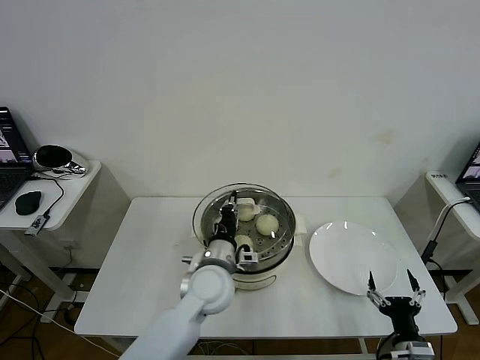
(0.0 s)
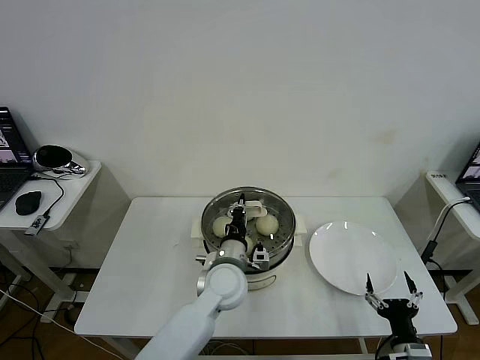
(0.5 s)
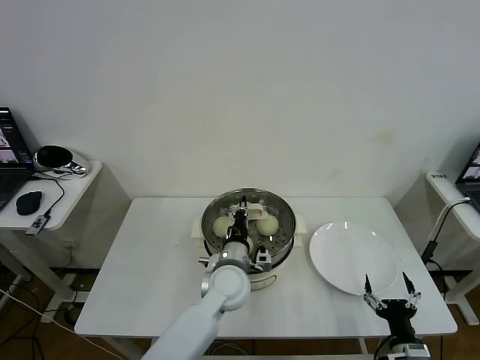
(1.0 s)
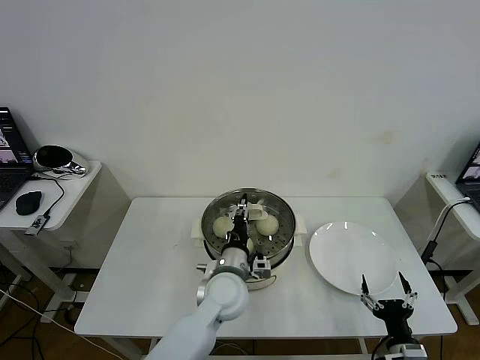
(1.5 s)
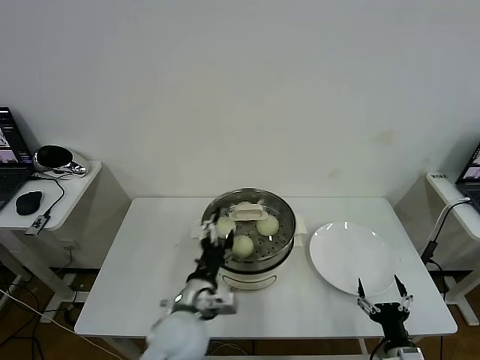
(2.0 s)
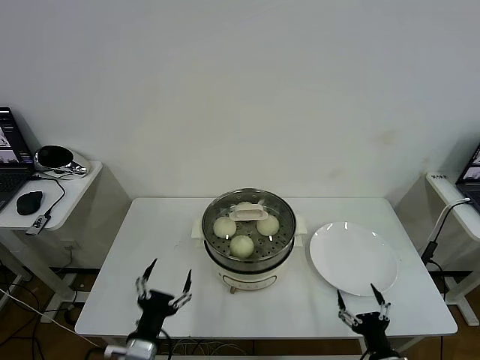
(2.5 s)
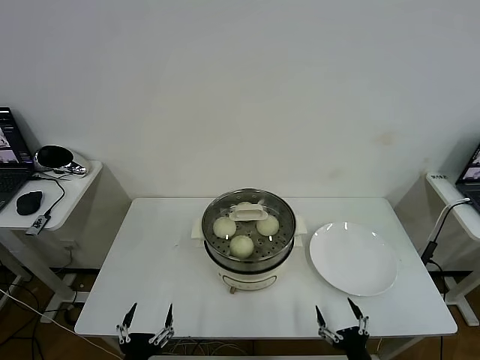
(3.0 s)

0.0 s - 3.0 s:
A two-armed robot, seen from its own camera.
Task of the whole recording: take steamed baozi put them in steamer then cover it.
0.0 s - 1.5 s: The left gripper shifts by approximately 5 cm, and opens up.
1.5 s - 3.0 s: The left gripper moves backward and to the left, approximately 30 cm, and opens up. The right gripper goes some 5 cm to the left.

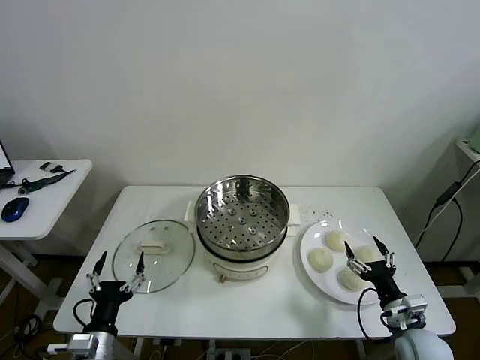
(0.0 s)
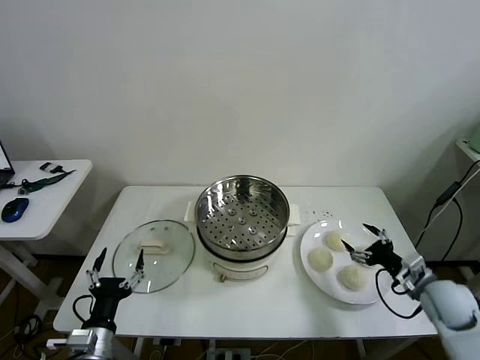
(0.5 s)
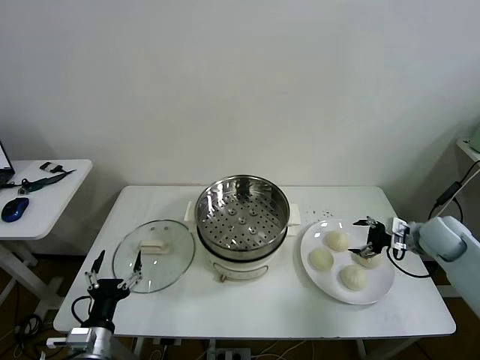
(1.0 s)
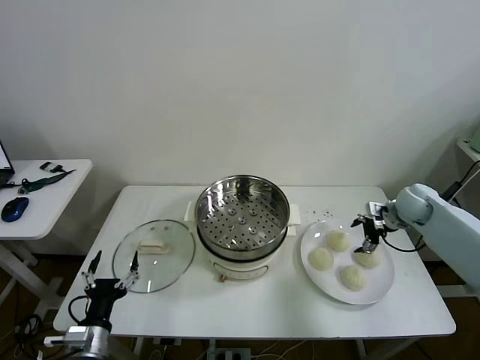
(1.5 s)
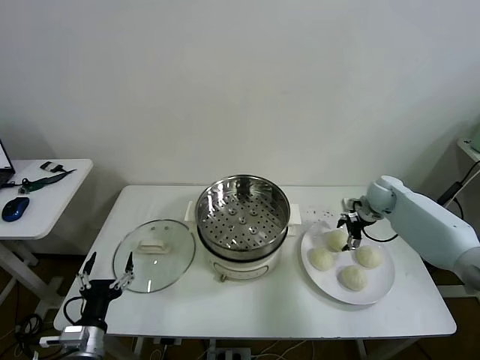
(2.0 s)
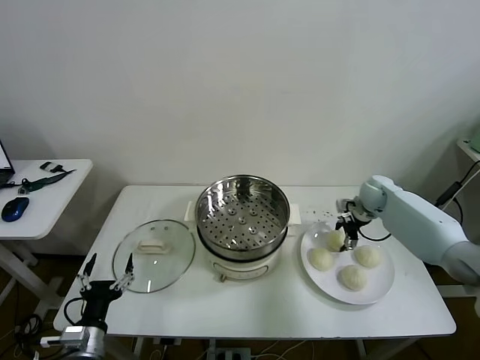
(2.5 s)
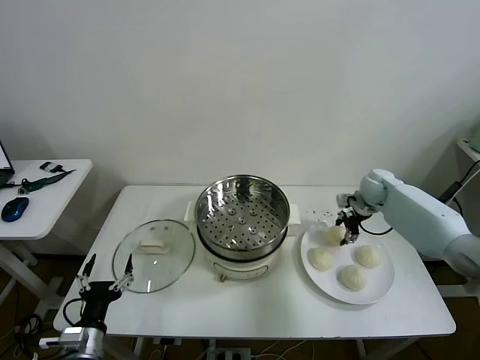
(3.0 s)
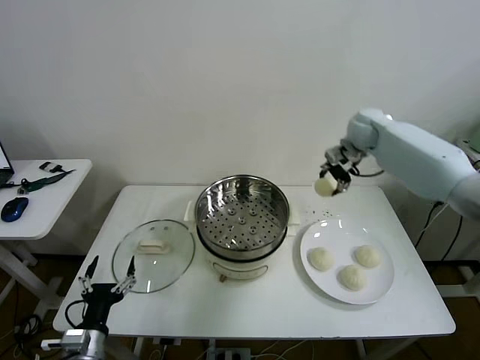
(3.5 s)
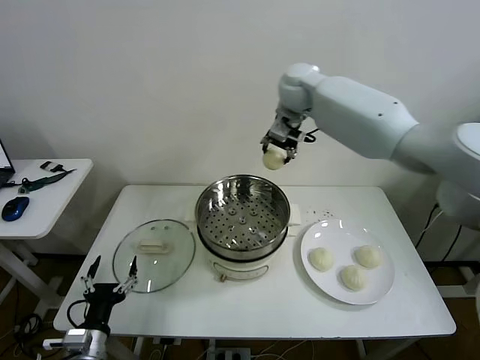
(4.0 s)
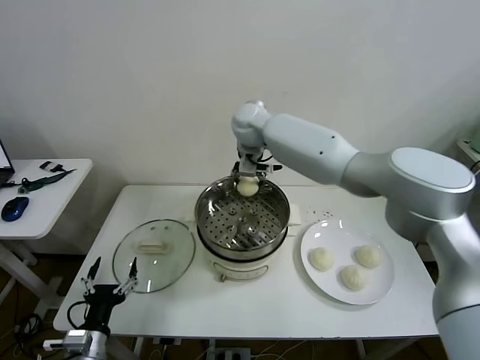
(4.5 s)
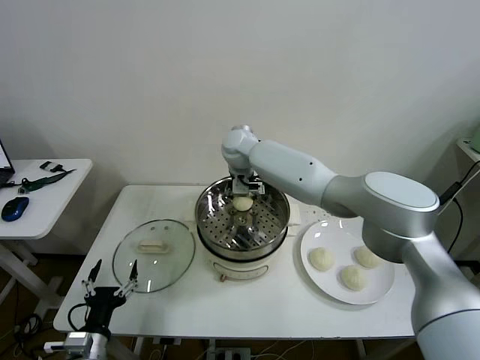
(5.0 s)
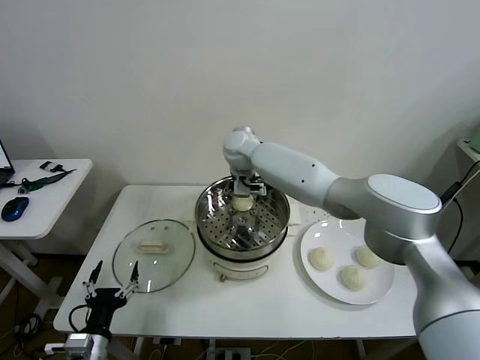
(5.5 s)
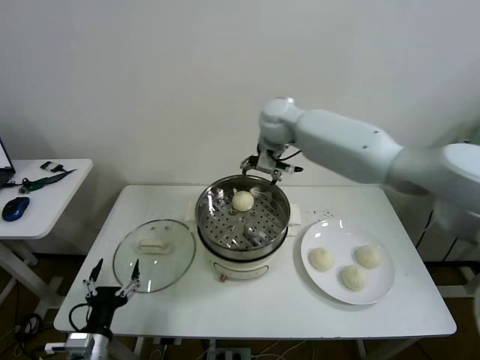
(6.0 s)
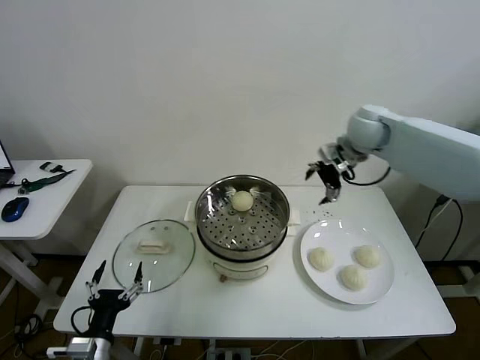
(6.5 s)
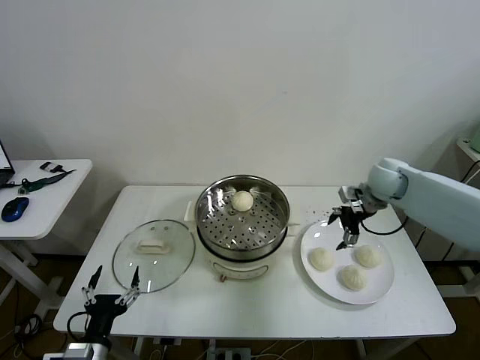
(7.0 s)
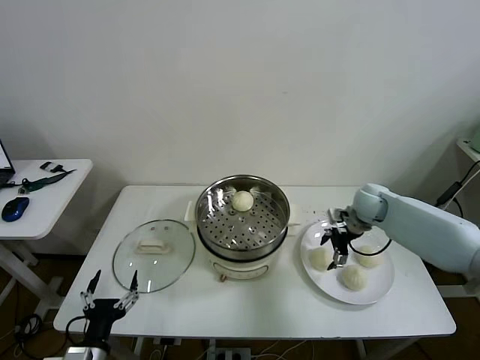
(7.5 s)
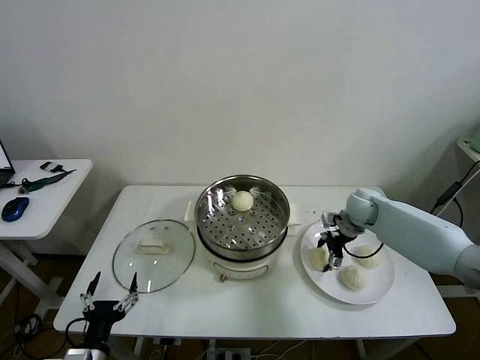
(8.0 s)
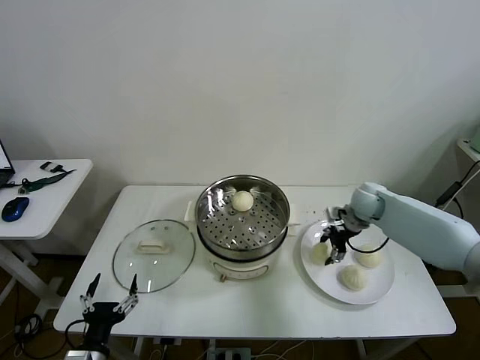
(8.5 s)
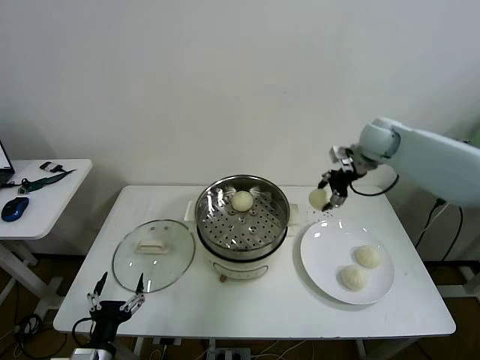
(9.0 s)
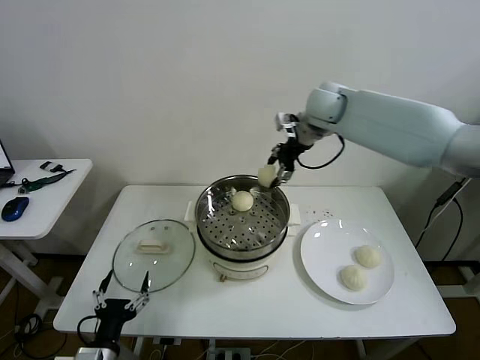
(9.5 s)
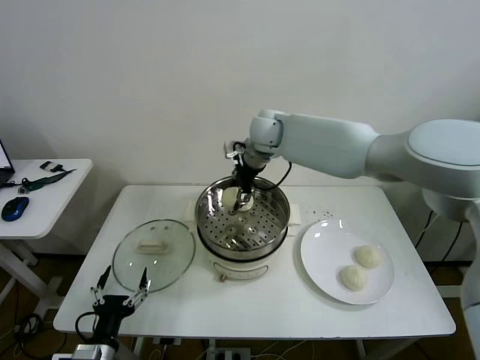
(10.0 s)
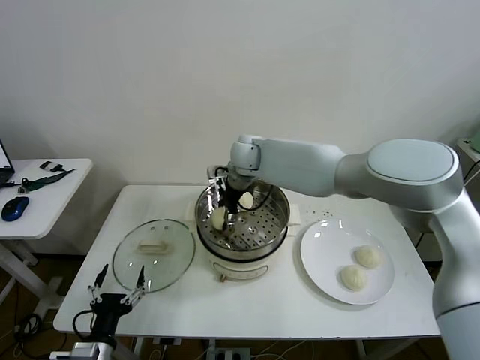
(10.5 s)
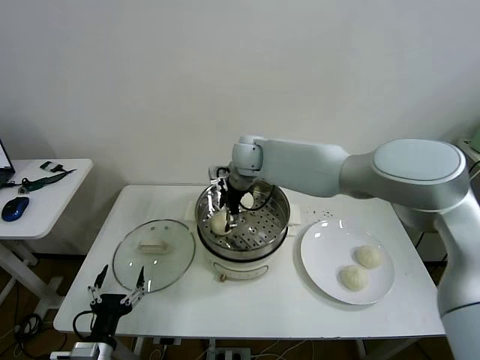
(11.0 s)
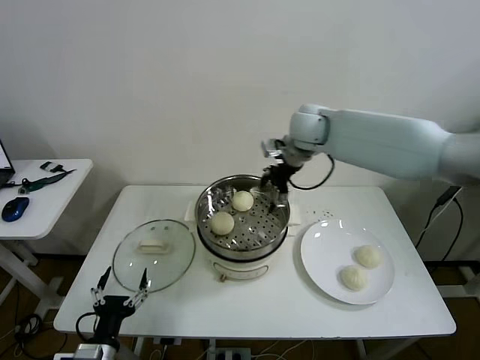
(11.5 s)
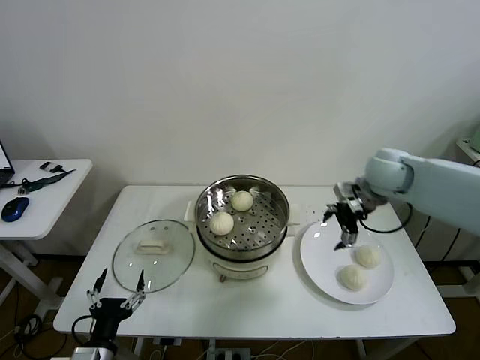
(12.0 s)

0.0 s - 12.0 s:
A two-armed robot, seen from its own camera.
Task of the whole recording: take steamed baozi put them in steamer then cover it.
Step, 0.0 s - 2.5 s: Grasp the baozi in the plate with right gripper.
Step, 3.0 s - 5.0 s: Place the baozi on the steamer with right gripper.
Step, 5.5 s - 8.0 s: Grasp the baozi in the plate with right gripper.
Step, 8.5 s - 10.5 s: Place the baozi on the steamer with right gripper.
2.0 s - 4.0 s: The right gripper is displaced to the left and upward by approximately 40 cm, and closes.
4.0 s - 6.0 s: The right gripper reaches some 15 cm downward, then returns, and opens its fingers.
6.0 s - 8.0 s: The right gripper is displaced downward and to the right by roughly 30 cm, and closes.
8.0 s - 10.0 s: The right gripper shifts roughly 35 cm to the left and upward, and closes its fingers.
10.0 s - 12.0 s: The right gripper goes some 30 cm to the right, and opens.

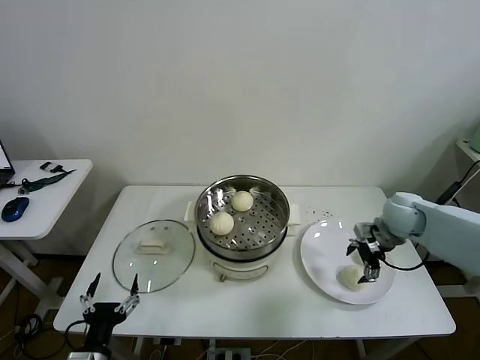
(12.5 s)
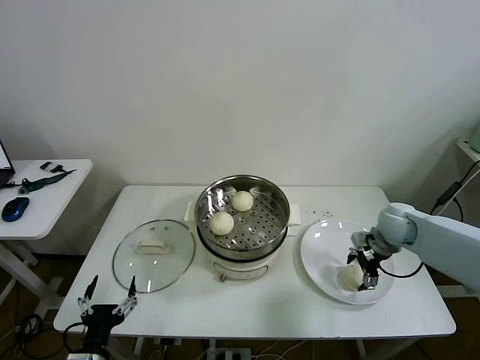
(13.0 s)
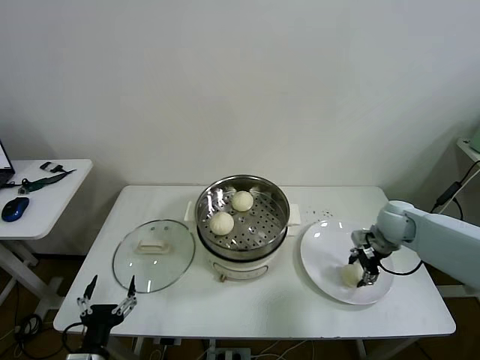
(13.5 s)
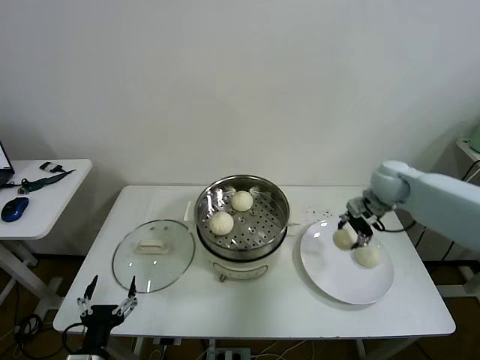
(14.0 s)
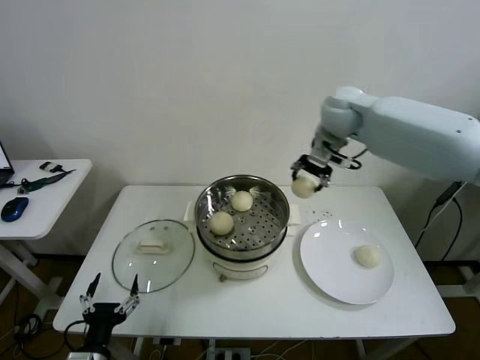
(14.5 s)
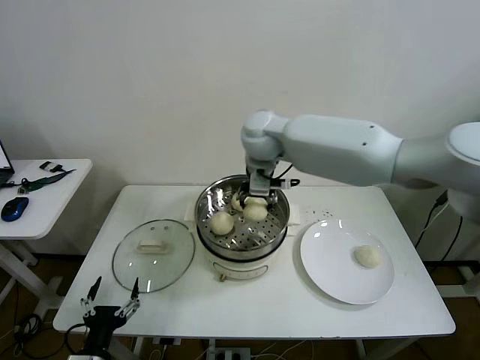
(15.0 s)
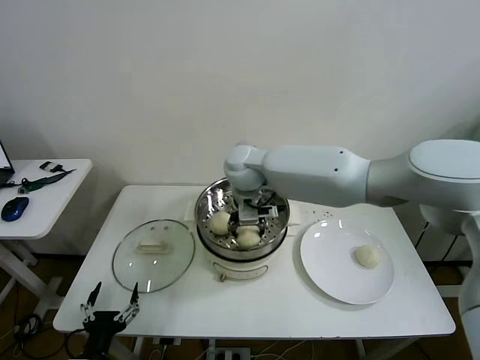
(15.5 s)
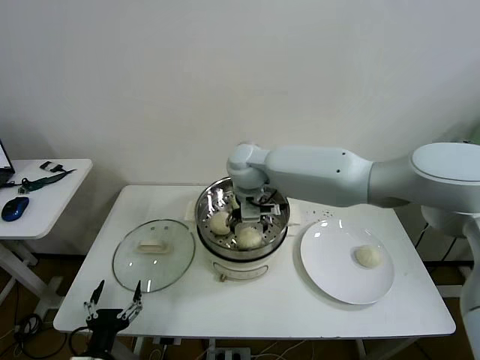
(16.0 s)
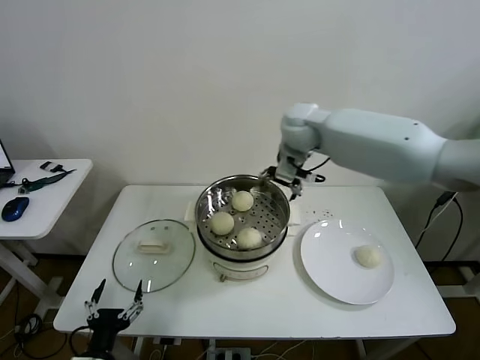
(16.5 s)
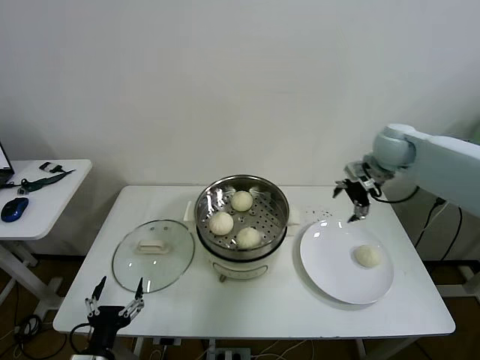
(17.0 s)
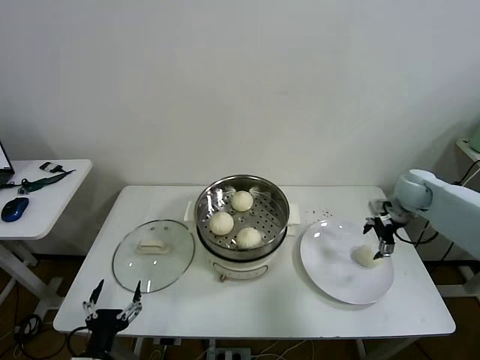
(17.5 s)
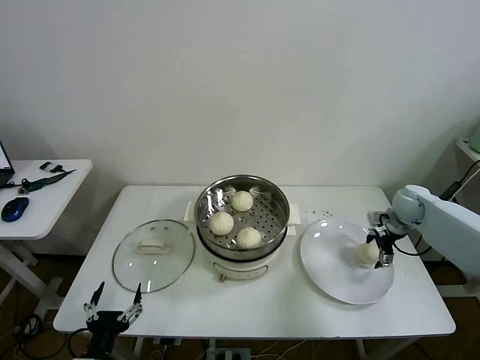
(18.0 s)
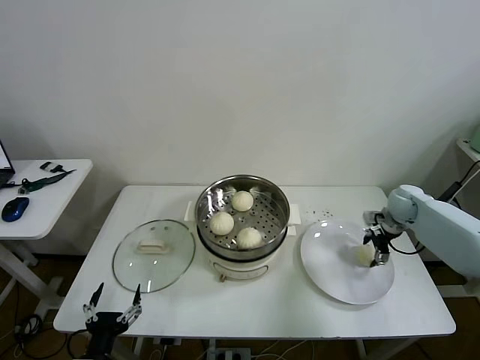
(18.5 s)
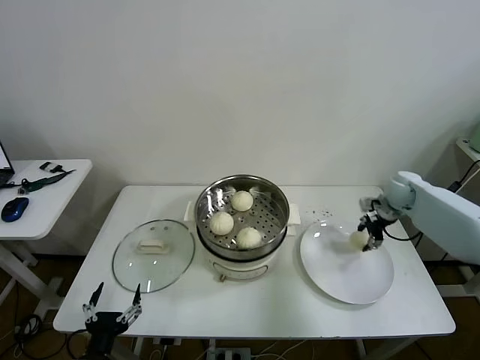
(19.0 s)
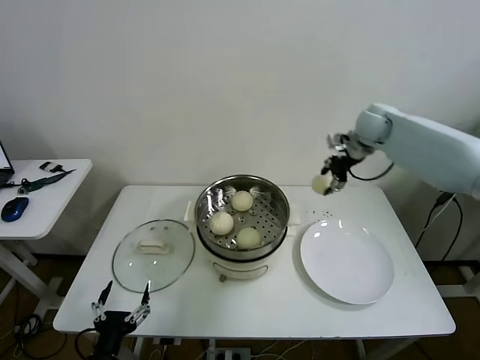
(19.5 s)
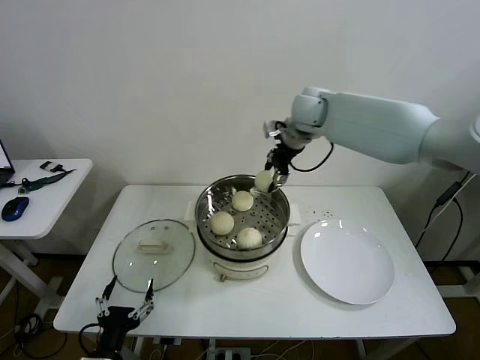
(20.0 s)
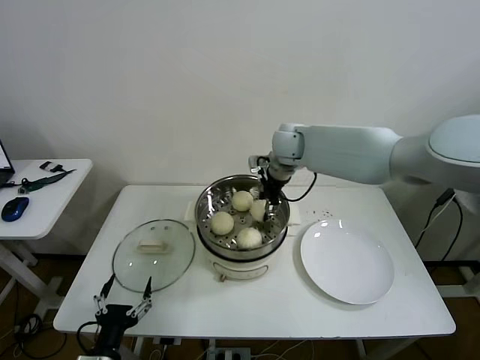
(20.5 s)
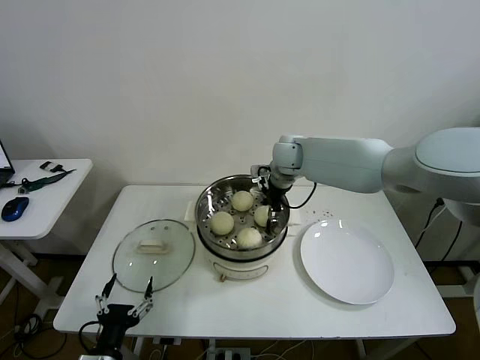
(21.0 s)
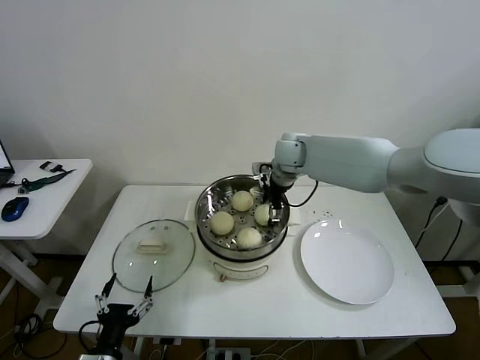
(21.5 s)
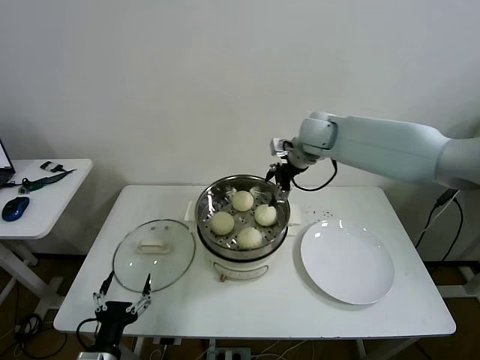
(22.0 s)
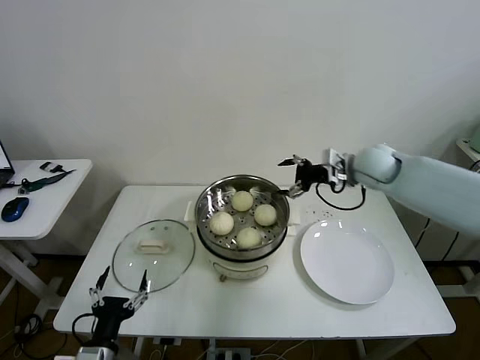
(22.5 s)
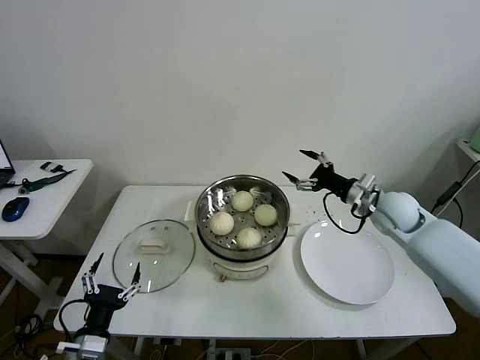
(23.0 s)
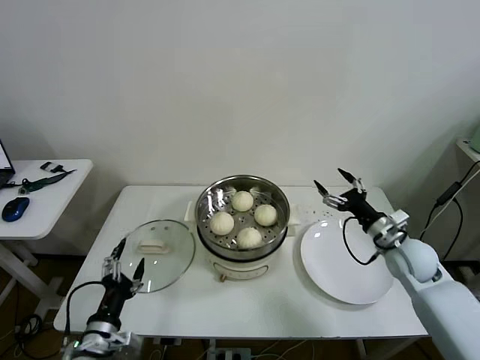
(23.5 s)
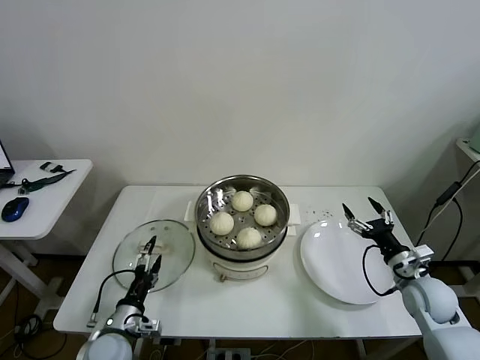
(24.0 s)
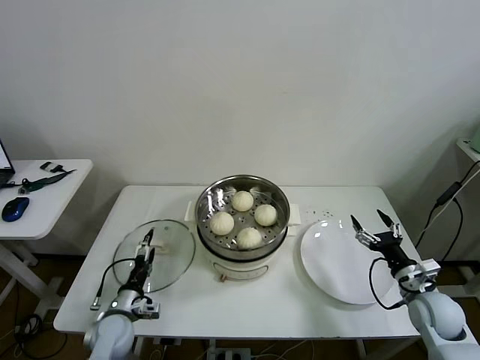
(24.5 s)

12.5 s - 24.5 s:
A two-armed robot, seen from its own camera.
Task of the whole recording: take steamed baozi put them in steamer then cover it.
Step, 13.5 s - 15.5 s: Place the baozi on the steamer with right gripper.
Step, 16.0 s - 18.5 s: Grasp the baozi in the plate with right gripper.
Step, 19.0 s - 21.0 s: Place the baozi on the steamer with right gripper.
12.5 s - 14.5 s: The right gripper moves upward, to the left and forward, about 30 cm, and closes up.
14.5 s - 16.5 s: The right gripper moves about 20 cm to the left and comes back, and opens its fingers.
16.5 s - 18.5 s: The right gripper heads to the right and downward, covering about 35 cm, and closes.
18.5 s - 20.5 s: The right gripper heads to the left and upward, covering about 35 cm, and closes.
20.5 s - 22.5 s: The right gripper shifts roughly 20 cm to the right, and opens its fingers.
22.5 s - 24.5 s: The left gripper goes some 15 cm forward and downward; the right gripper moves backward, downward and to the right, about 35 cm.
